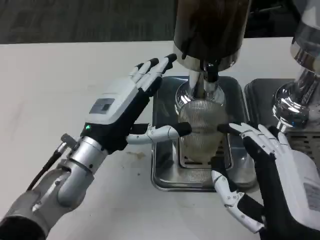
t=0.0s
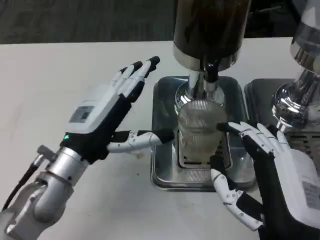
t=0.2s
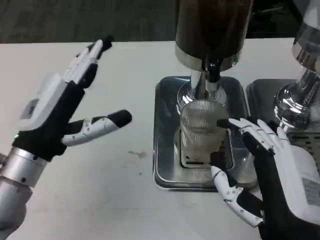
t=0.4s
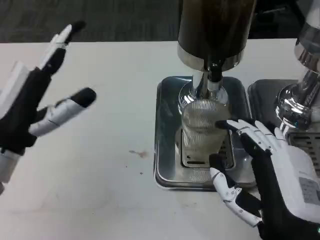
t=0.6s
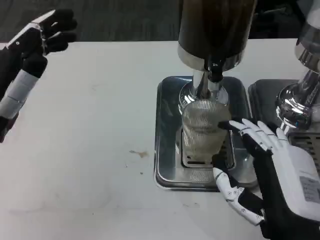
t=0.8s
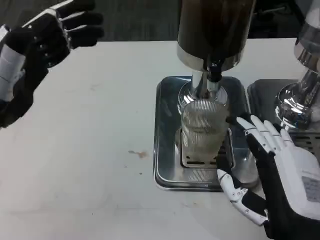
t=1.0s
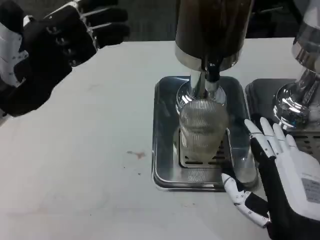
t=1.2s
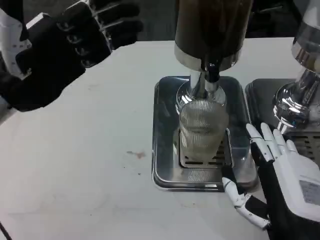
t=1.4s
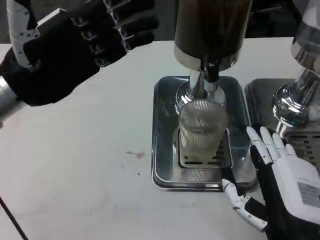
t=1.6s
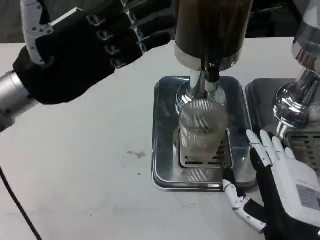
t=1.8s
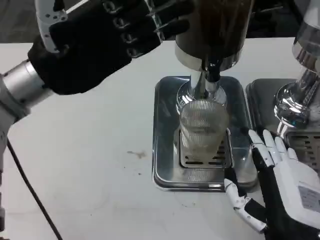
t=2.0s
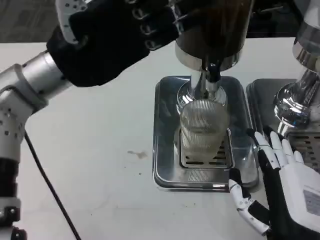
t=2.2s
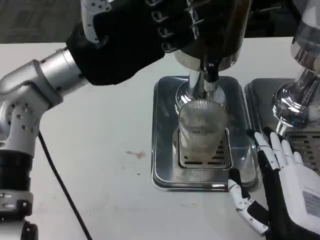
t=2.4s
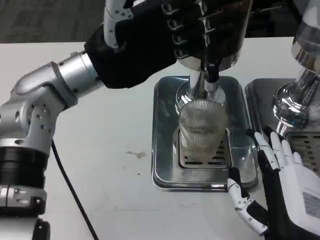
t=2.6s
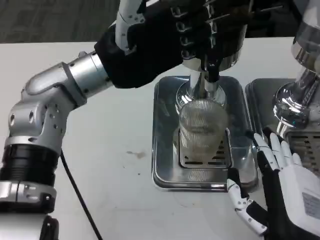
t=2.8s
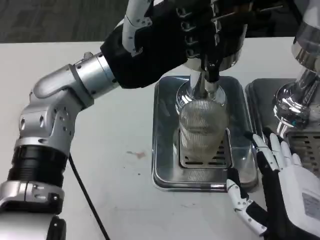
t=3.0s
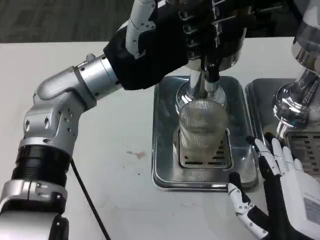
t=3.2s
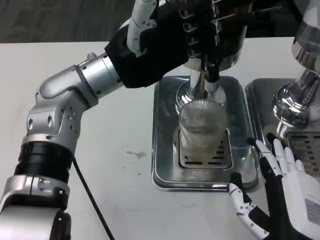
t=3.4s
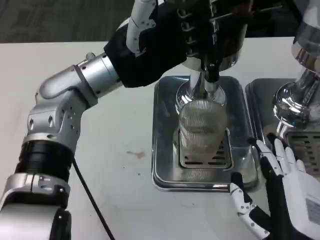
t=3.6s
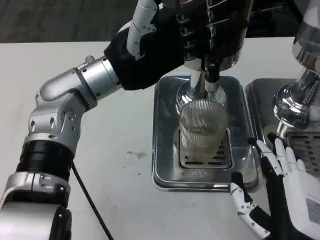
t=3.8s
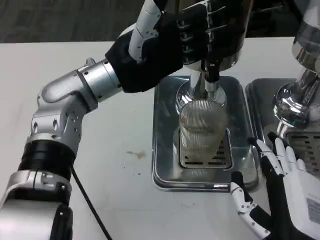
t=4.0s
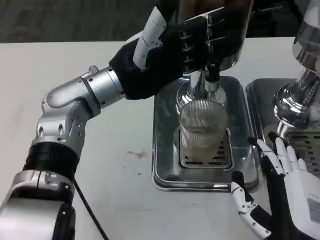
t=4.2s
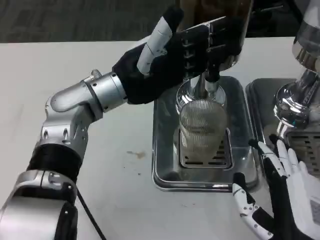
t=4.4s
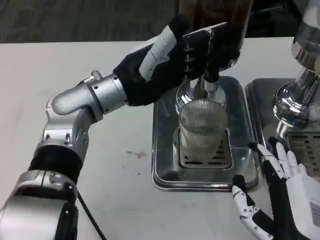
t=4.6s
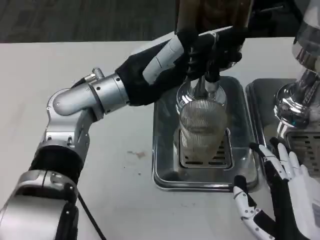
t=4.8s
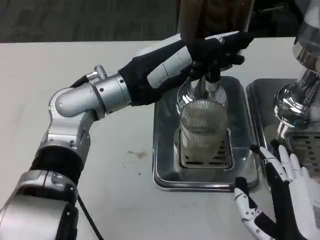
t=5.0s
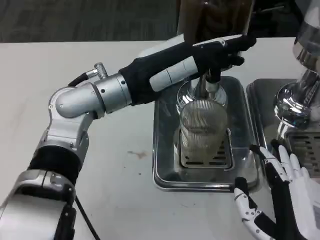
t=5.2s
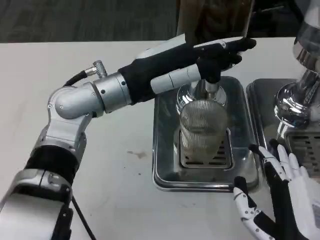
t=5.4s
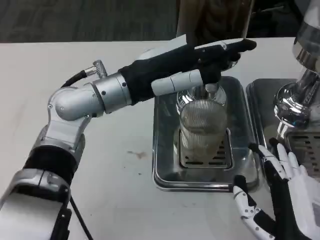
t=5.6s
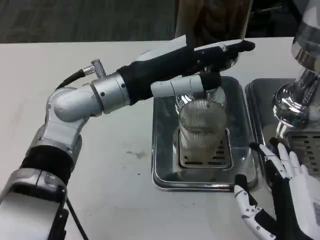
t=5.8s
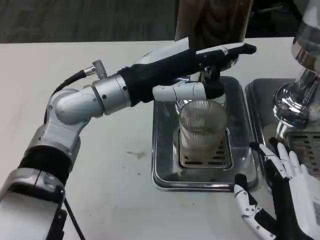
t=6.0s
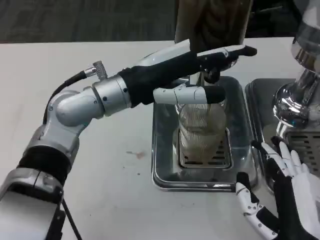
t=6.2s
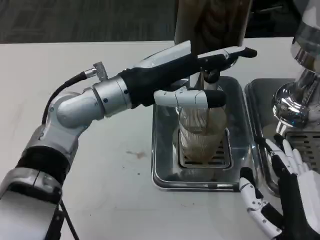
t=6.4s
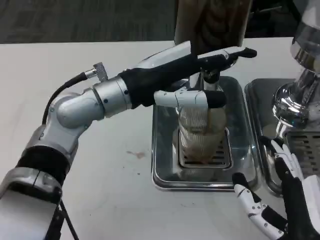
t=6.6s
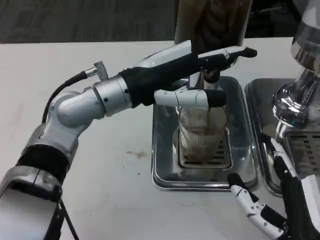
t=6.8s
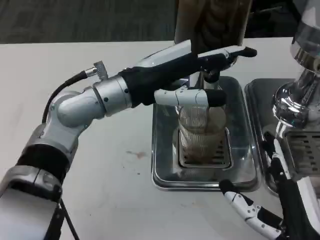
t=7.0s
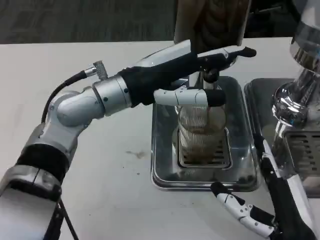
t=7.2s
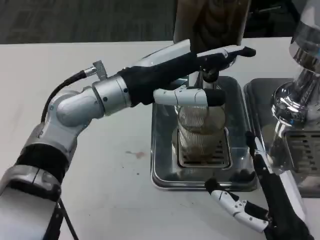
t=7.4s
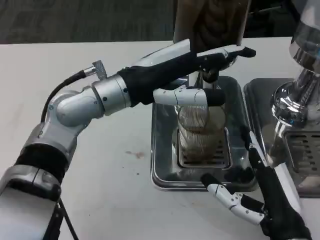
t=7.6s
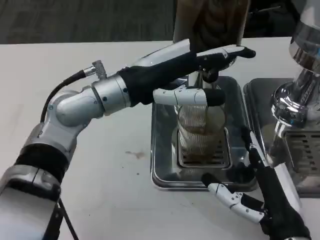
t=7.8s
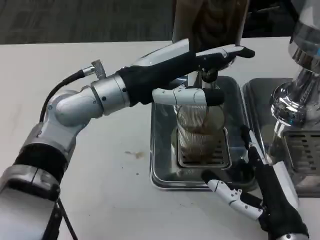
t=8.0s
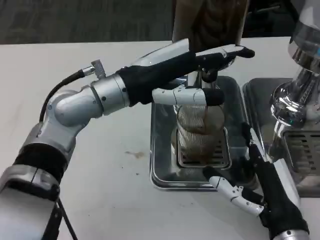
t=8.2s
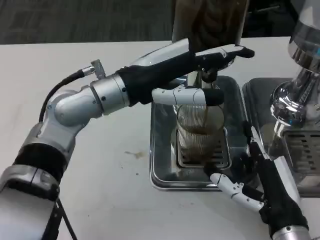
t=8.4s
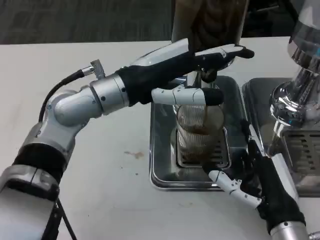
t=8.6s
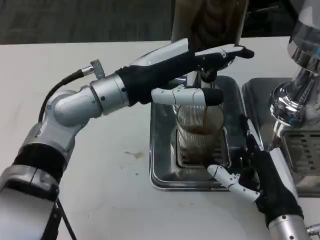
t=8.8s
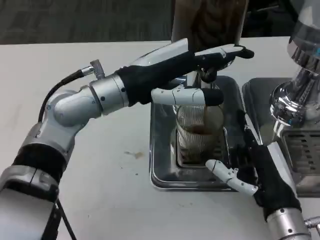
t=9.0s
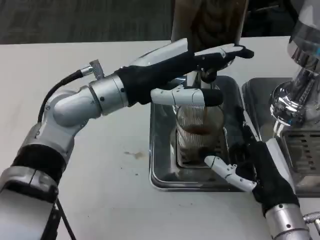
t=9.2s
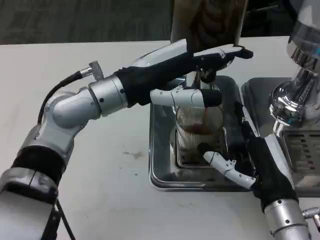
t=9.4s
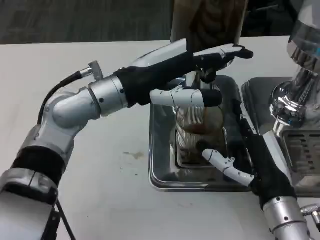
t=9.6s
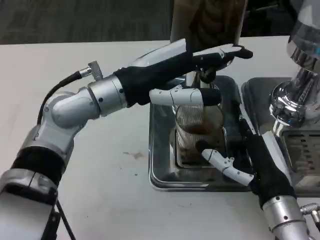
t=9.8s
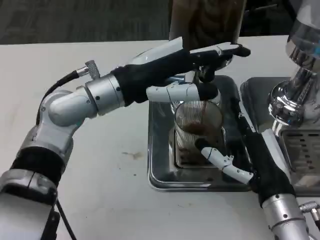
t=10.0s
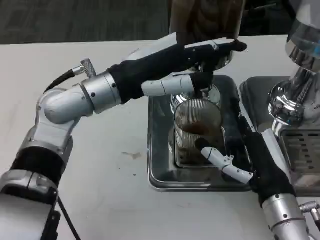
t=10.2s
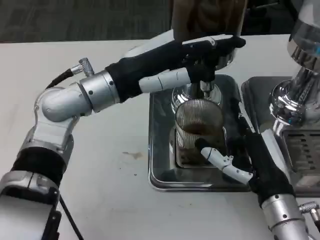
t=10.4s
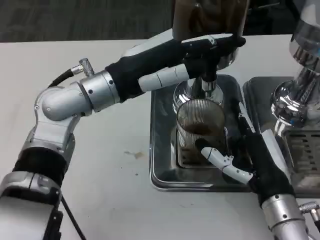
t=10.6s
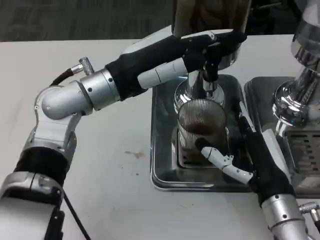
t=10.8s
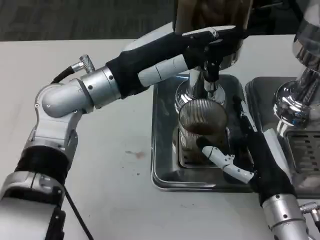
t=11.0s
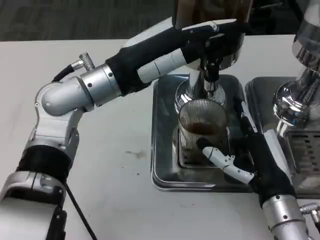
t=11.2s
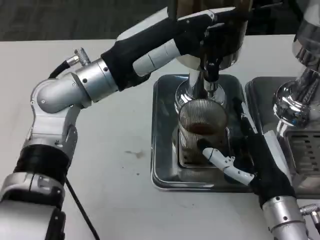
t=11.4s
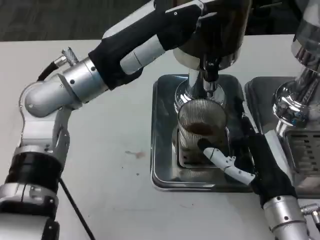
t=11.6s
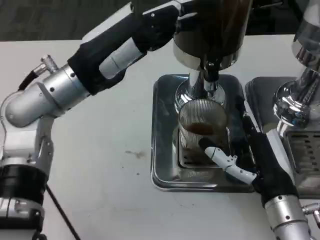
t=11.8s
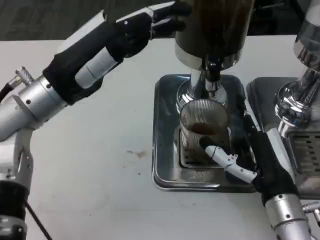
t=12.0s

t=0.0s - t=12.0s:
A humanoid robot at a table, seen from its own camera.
Task of the whole recording: Grasp the cup under the faucet to collect the drink, then remove the cup.
t=0.0s - t=1.6s: The left hand moves upward and to the left, roughly 15 cm.
t=1.6s - t=3.0s: The left hand is displaced to the right by some 10 cm.
t=6.0s - t=7.6s: The right hand moves approximately 5 cm.
t=7.6s - t=9.0s: There are only small adjustments of the hands.
t=10.4s - t=12.0s: The left hand goes approximately 5 cm to the left.

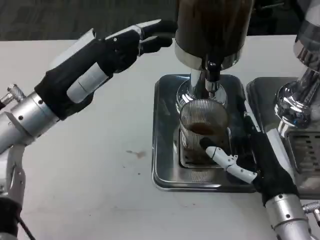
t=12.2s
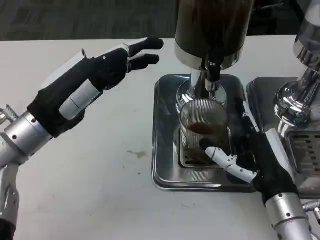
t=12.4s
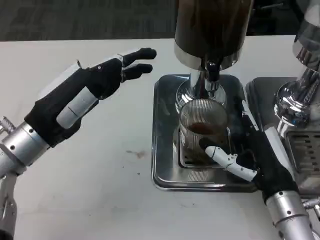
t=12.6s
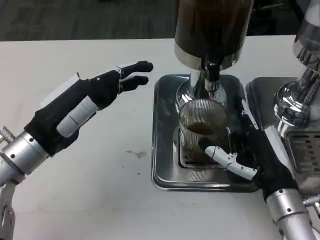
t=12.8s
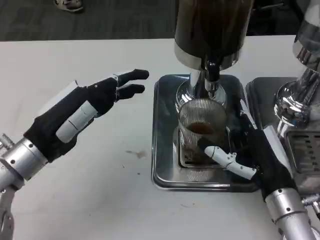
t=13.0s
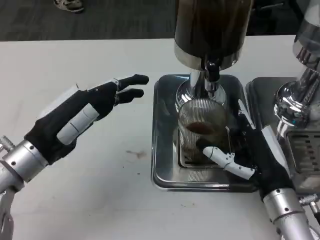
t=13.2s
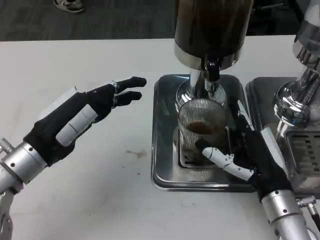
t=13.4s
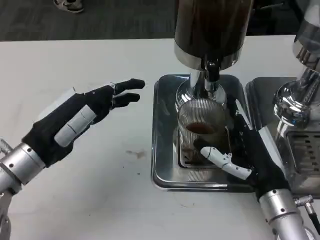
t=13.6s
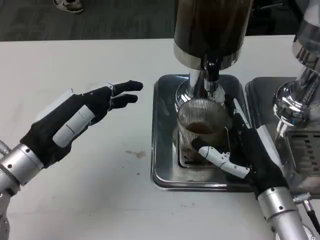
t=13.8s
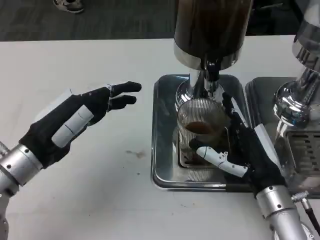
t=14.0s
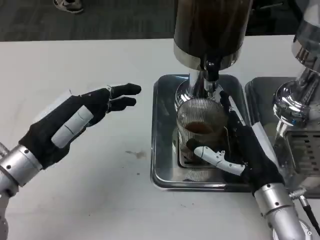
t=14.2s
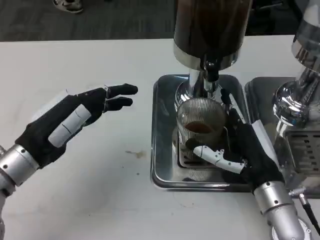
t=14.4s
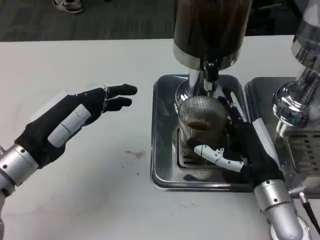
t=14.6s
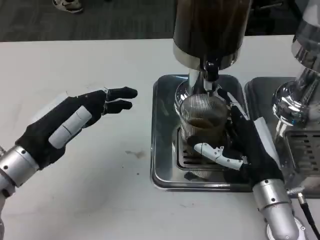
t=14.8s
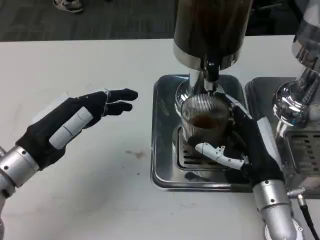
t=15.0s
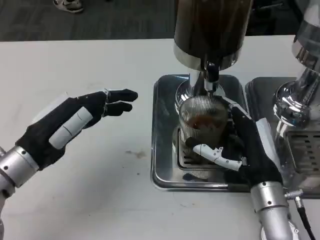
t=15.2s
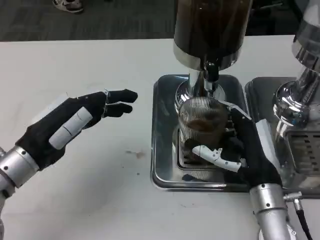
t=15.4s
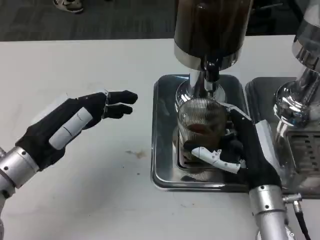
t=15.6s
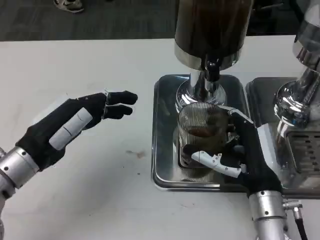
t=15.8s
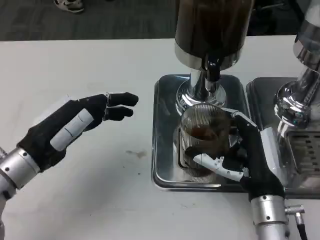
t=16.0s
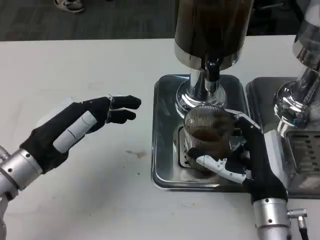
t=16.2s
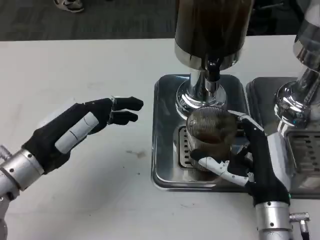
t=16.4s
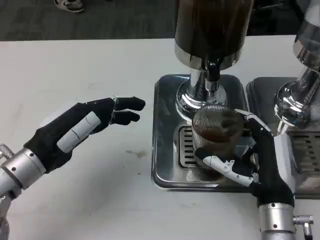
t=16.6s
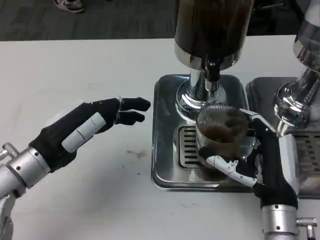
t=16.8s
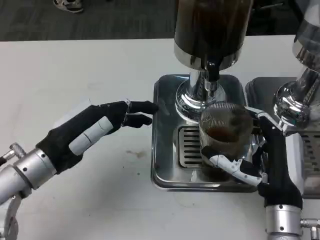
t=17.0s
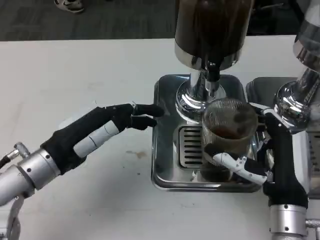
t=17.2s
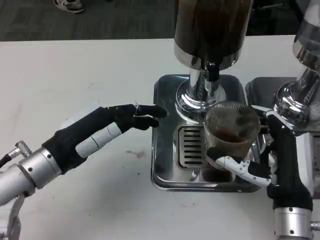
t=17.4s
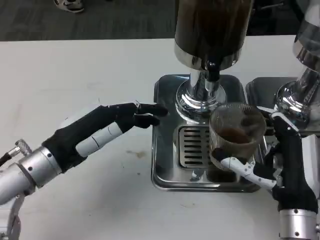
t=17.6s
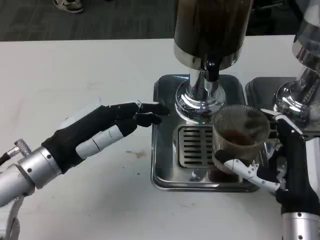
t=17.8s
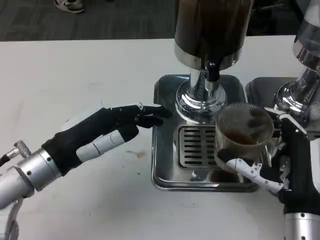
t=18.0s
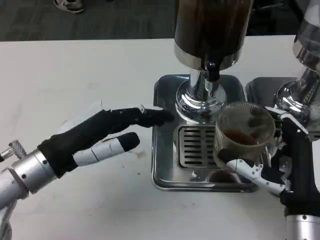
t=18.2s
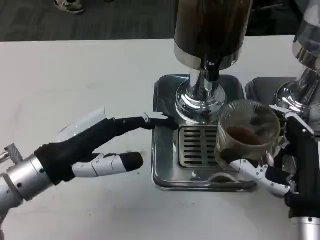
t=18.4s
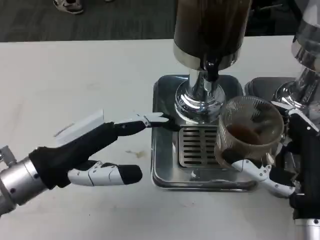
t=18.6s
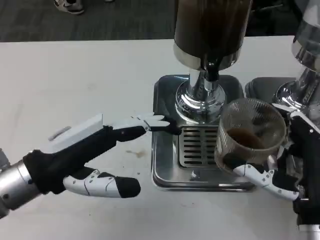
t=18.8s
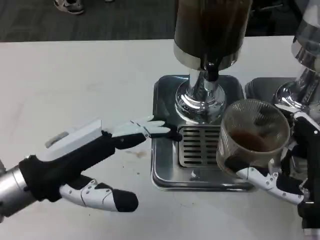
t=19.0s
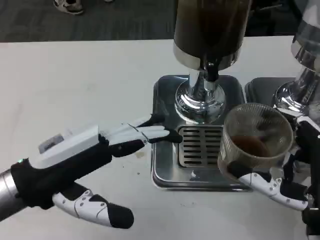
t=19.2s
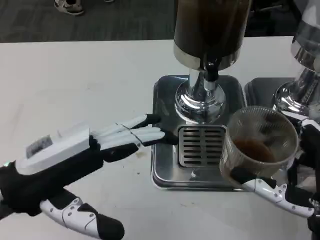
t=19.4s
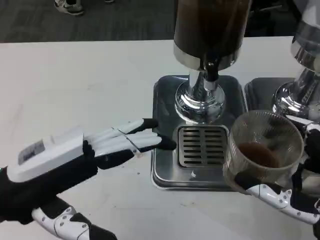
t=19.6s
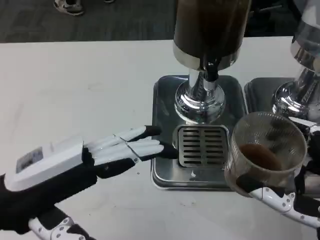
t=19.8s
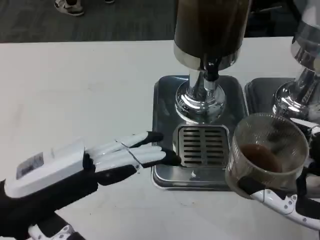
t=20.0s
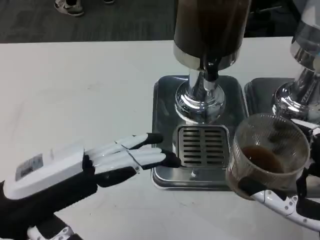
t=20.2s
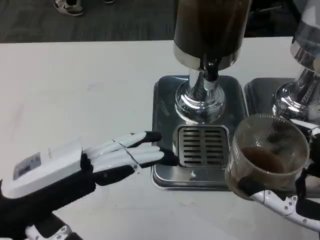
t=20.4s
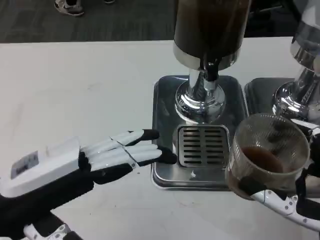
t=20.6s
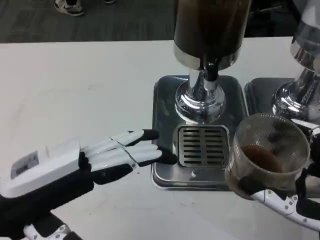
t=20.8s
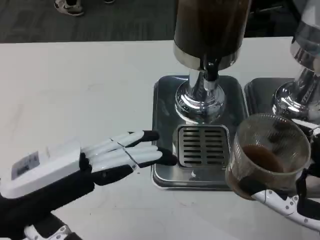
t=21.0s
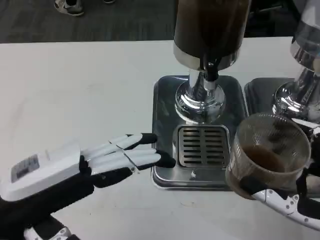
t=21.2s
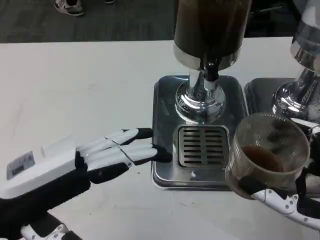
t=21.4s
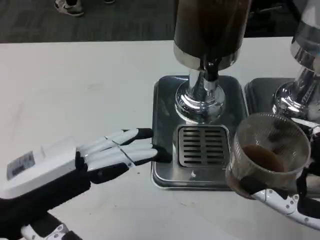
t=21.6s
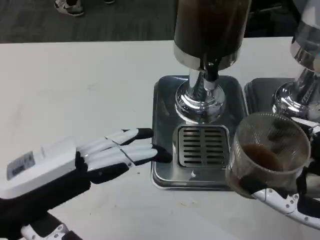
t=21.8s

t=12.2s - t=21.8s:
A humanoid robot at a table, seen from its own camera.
Task of the whole recording: Grasp the cup under the faucet to collect the drink, then remove the cup.
t=12.2s - t=13.8s: The left hand goes roughly 5 cm downward.
t=13.8s - t=15.4s: The hands make only small movements.
t=17.0s - t=18.6s: The left hand moves approximately 5 cm; the right hand changes place by approximately 5 cm.
t=18.6s - t=20.2s: The two hands go approximately 5 cm backward.
t=20.2s - t=21.8s: Both hands stay put.

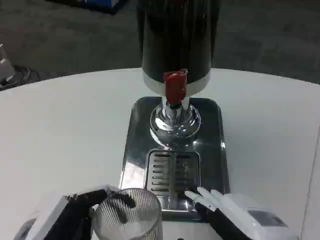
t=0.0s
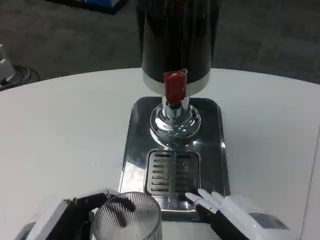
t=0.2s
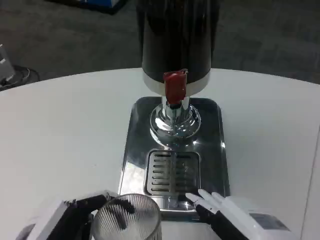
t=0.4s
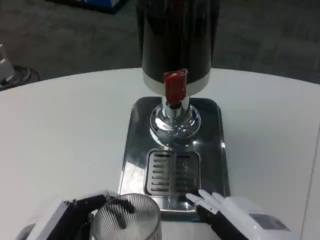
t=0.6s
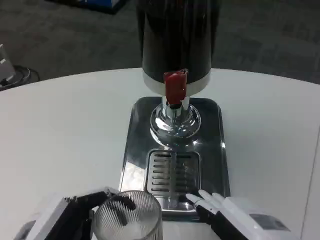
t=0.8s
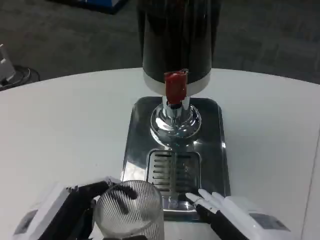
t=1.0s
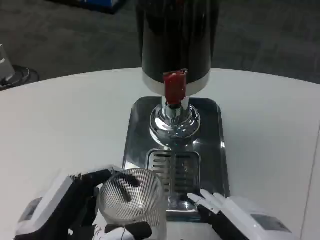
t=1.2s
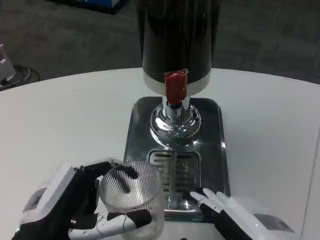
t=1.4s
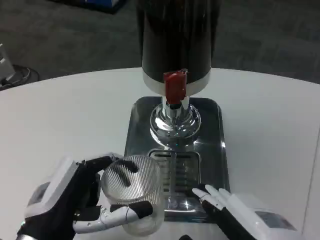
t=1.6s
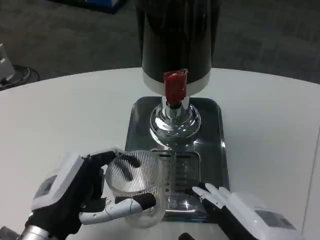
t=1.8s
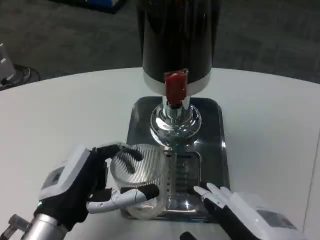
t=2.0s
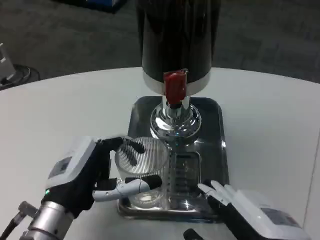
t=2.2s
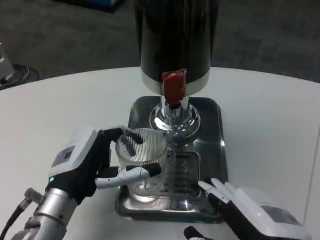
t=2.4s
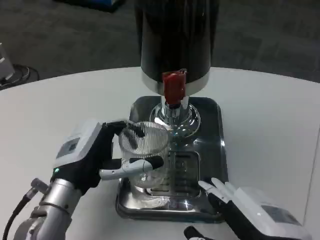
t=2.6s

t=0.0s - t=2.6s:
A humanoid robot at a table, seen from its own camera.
Task of the whole recording: Grasp the cup under the faucet to collect the drink, then remove the cup.
t=0.0s - t=1.2s: There are only small adjustments of the hands.
t=1.2s - t=2.6s: The left hand moves forward, some 10 cm.
